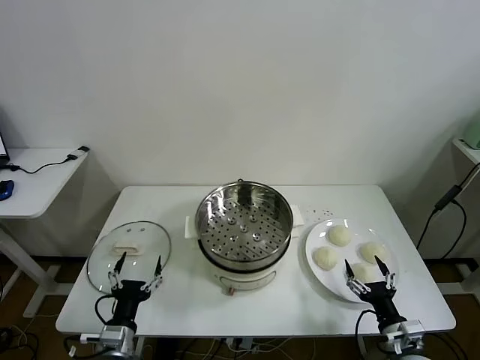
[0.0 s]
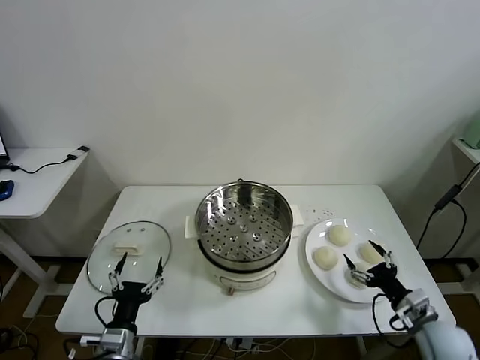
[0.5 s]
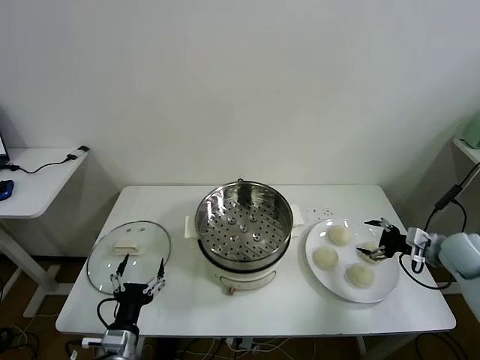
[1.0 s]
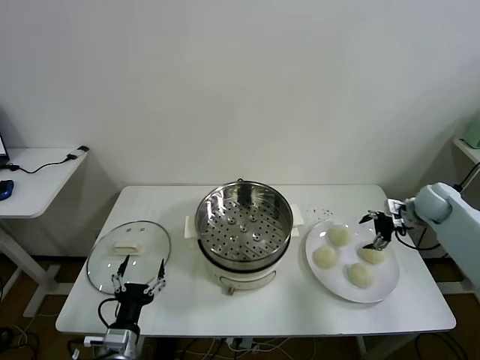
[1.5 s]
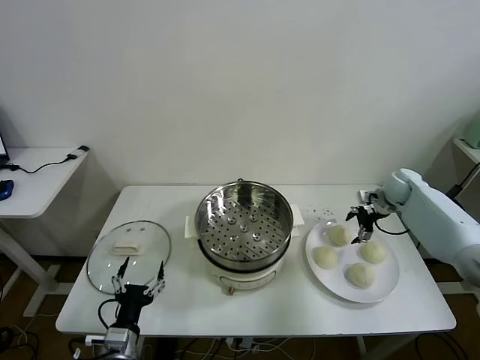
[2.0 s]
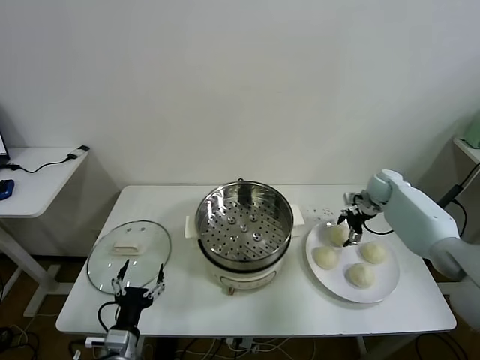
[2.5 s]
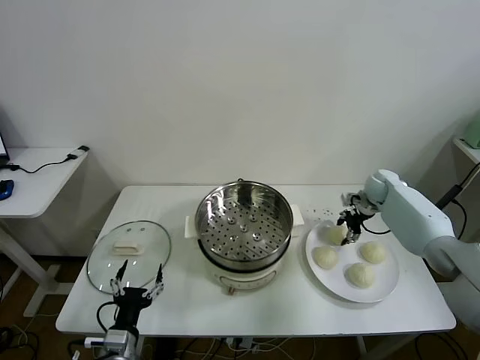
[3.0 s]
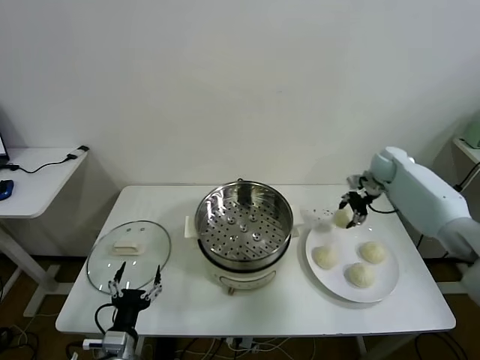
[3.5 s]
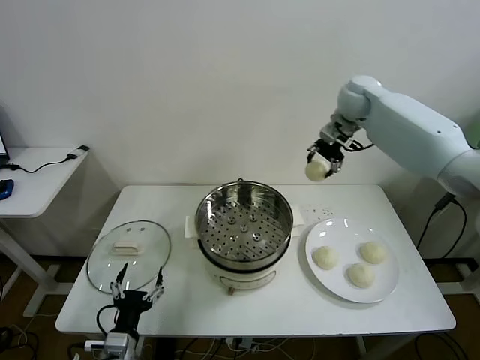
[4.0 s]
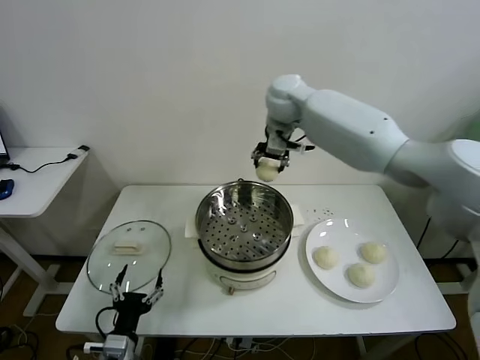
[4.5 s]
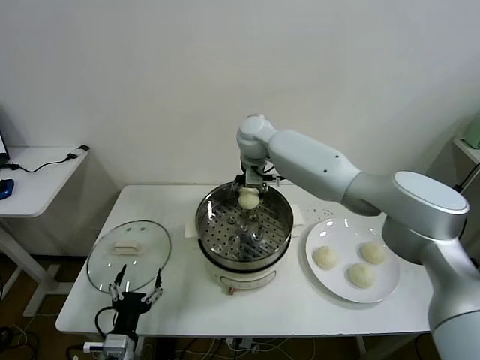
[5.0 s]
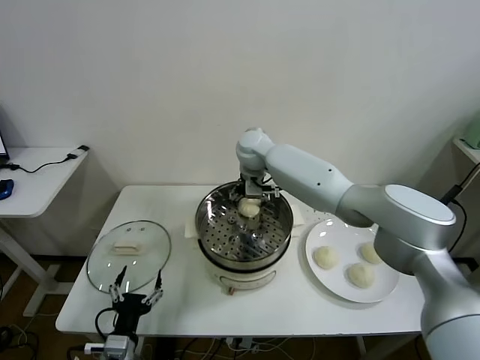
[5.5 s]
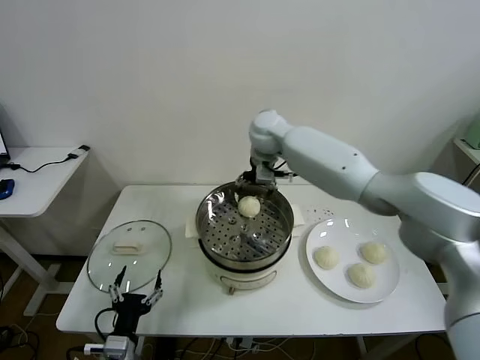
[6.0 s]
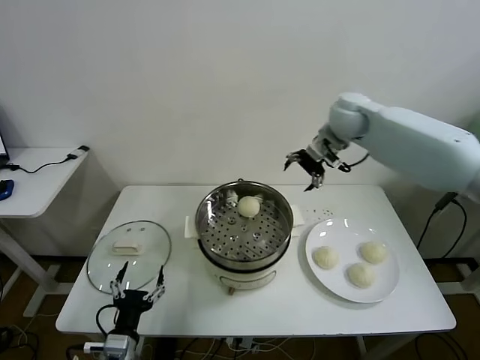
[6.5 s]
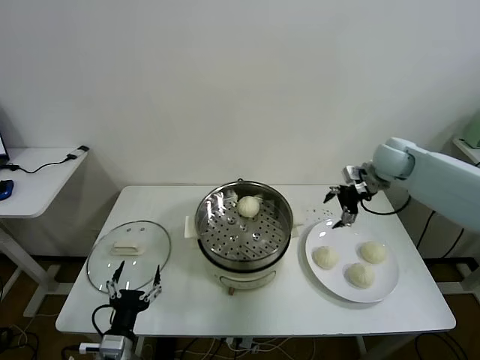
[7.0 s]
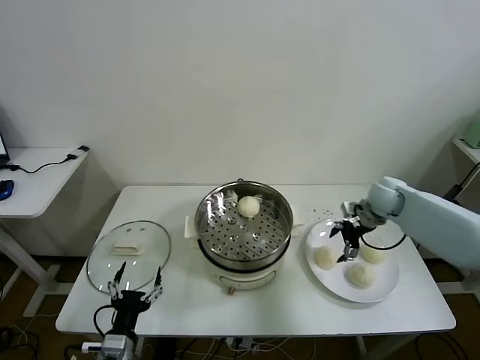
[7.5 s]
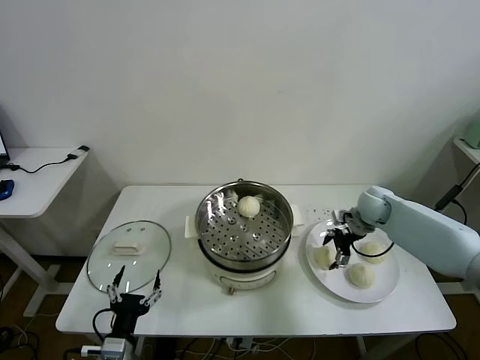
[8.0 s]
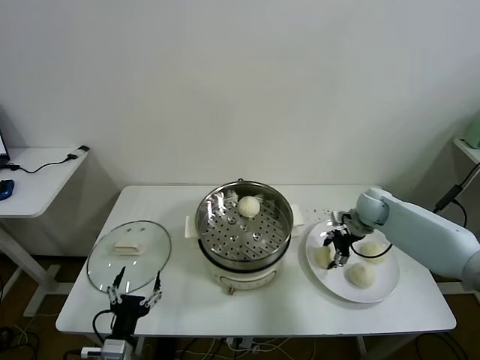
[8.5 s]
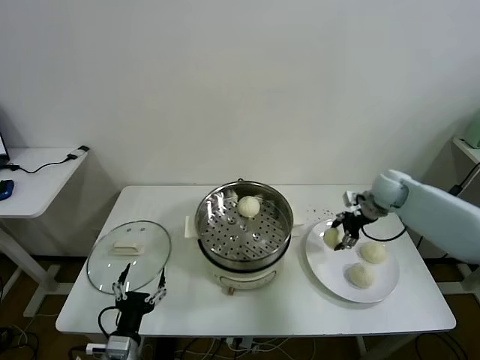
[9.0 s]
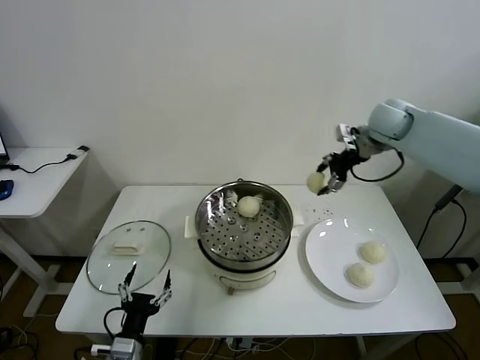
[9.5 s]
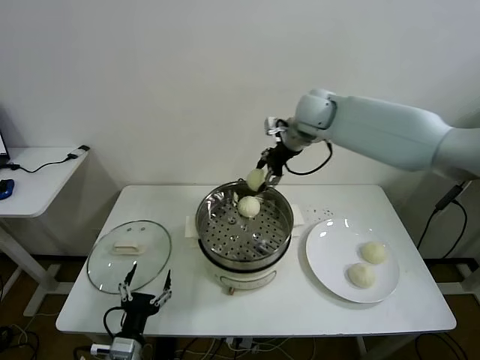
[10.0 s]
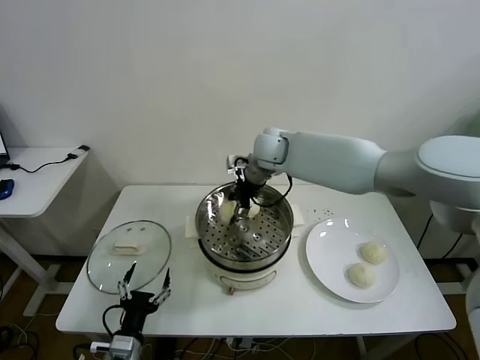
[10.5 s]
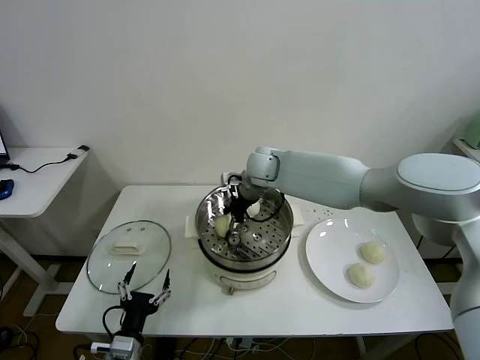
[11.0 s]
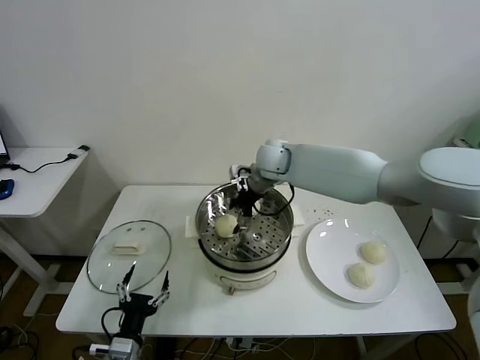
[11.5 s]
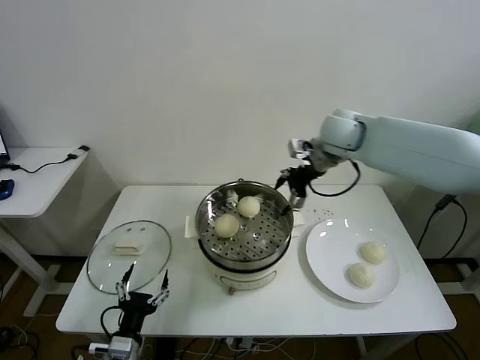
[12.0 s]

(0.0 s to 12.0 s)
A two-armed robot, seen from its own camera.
Task of the whole recording: take steamed baozi put them in steamer then cover it.
Step, 0.0 s - 3.0 s: Grasp the baozi in the plate with right gripper.
Step, 3.5 s - 5.5 s: Place the baozi on the steamer with right gripper.
Step, 6.0 s - 8.0 s: Grasp the baozi in the plate with right gripper.
Step, 8.5 s - 11.0 s: Place the baozi on the steamer with right gripper.
2.0 s - 4.0 s: The right gripper goes approximately 35 cm upward and to the left, and closes its fingers.
4.0 s - 6.0 s: The right gripper goes roughly 15 cm to the left and downward, and opens.
6.0 s - 8.0 s: The right gripper moves to the right and downward, approximately 35 cm.
8.0 s - 10.0 s: The right gripper heads upward and to the left, covering about 30 cm, and closes its fingers.
10.0 s - 12.0 s: The right gripper shifts some 10 cm to the right, and opens its fingers.

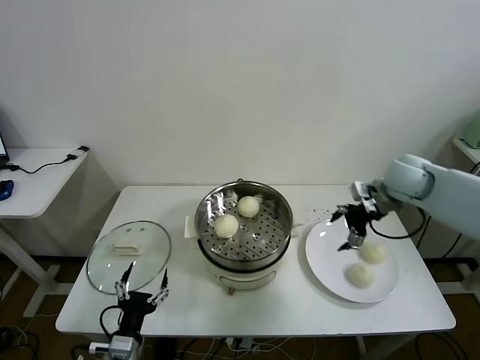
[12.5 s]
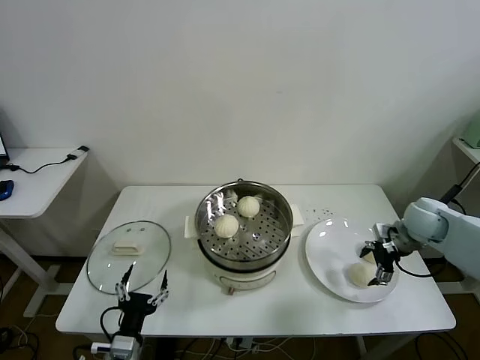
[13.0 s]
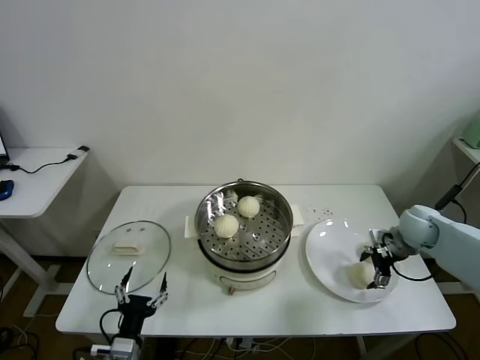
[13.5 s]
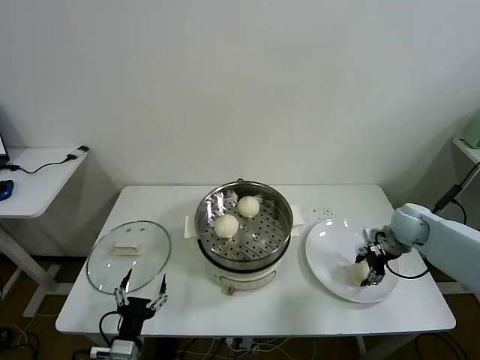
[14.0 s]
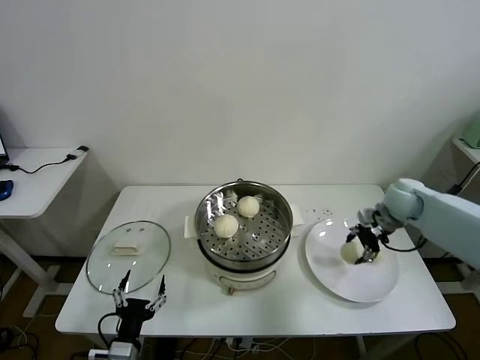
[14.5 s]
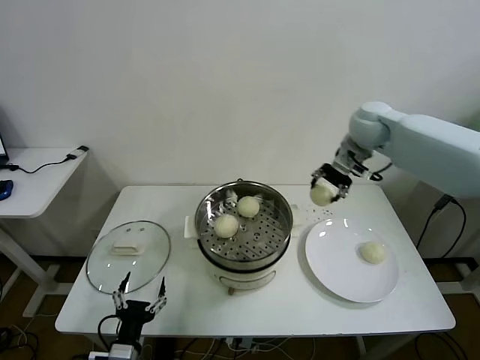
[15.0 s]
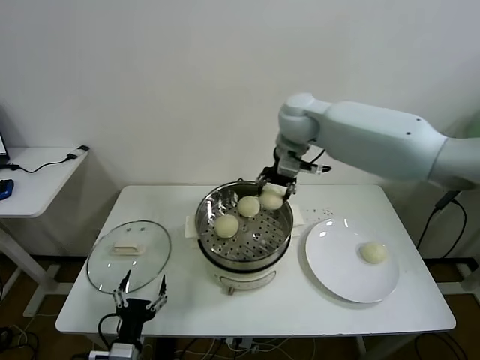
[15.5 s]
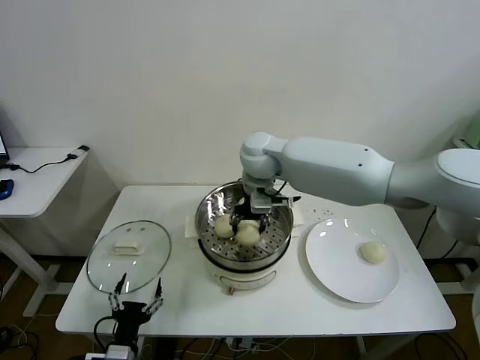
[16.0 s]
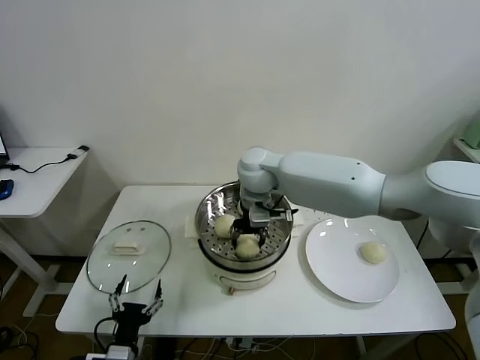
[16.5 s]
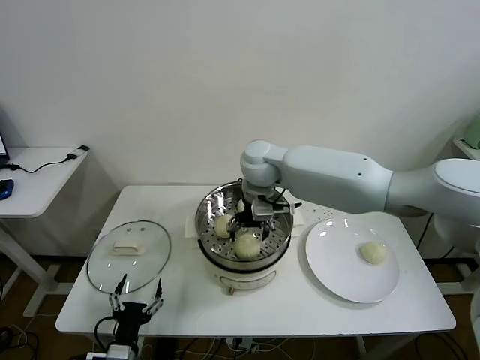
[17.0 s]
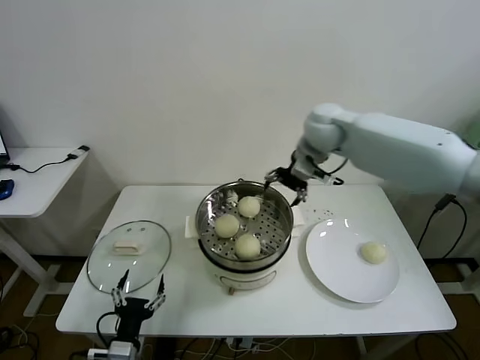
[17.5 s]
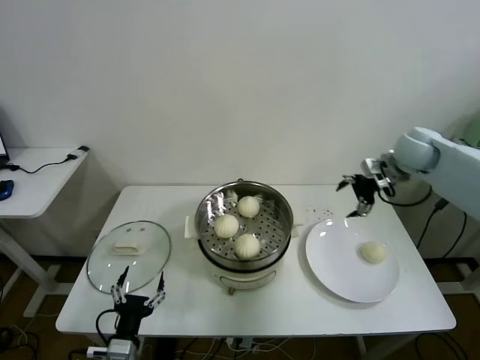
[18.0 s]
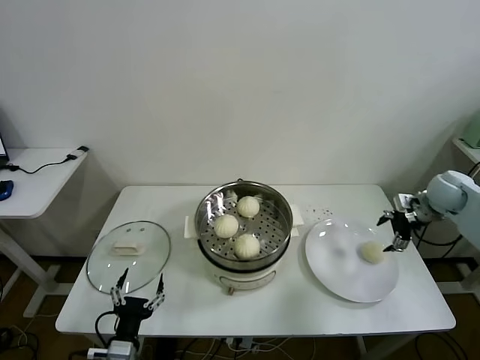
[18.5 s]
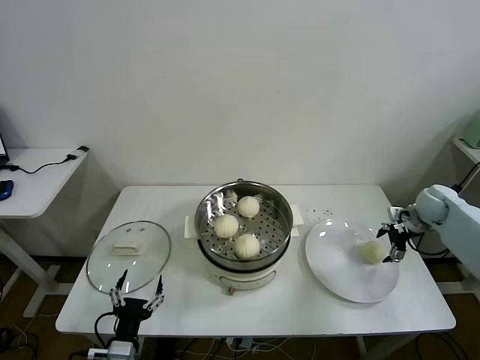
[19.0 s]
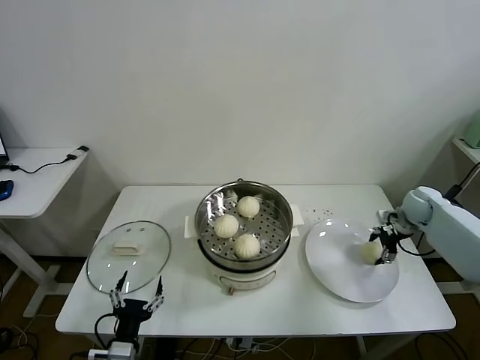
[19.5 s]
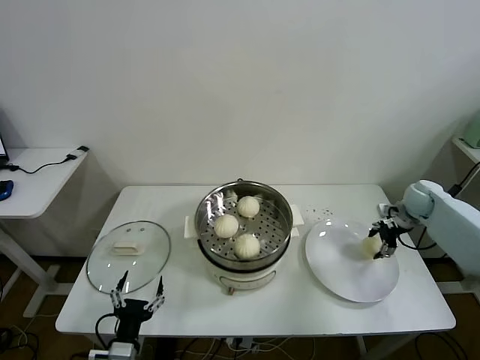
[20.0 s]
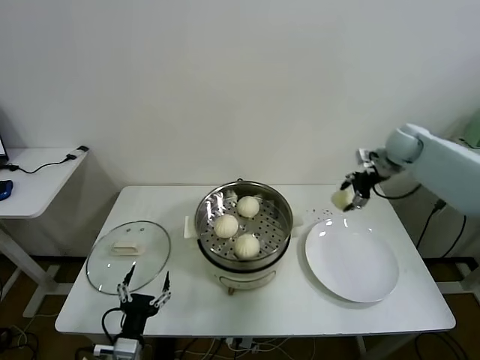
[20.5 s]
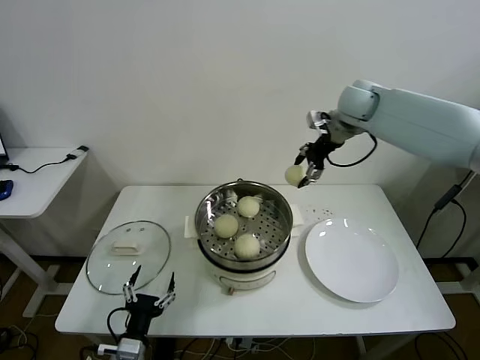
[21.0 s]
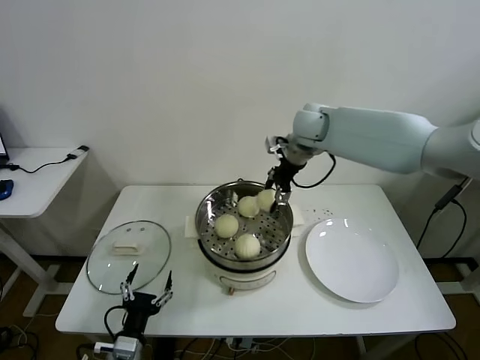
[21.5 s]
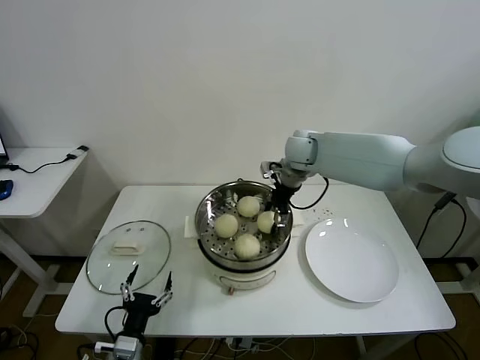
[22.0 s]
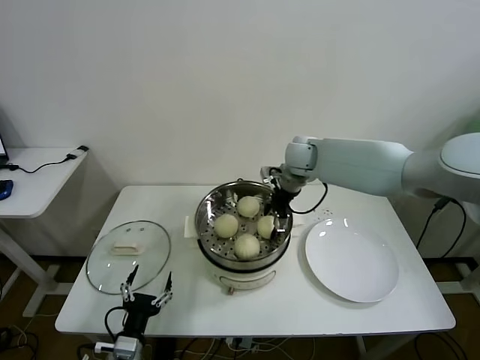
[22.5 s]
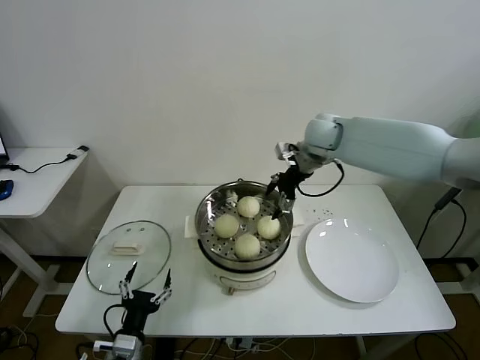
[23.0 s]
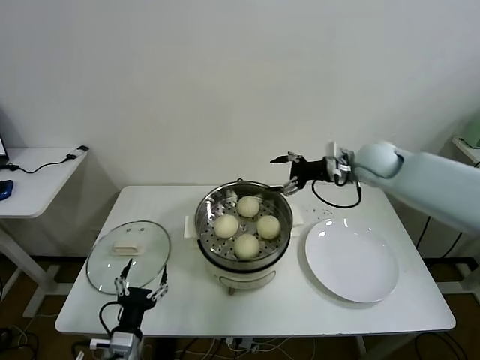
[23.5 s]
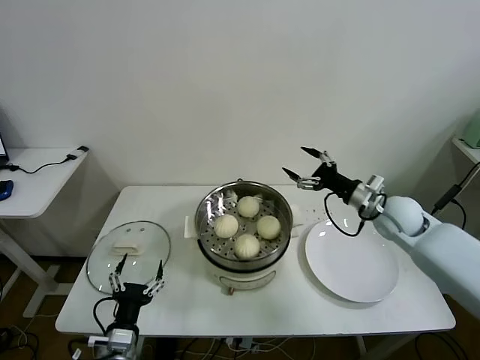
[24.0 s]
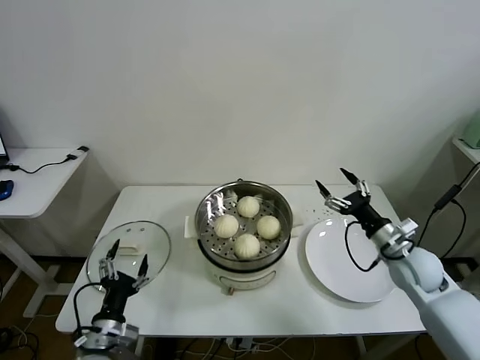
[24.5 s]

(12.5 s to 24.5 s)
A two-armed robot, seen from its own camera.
Task of the whole recording: take steamed baozi put them in steamer then cover it.
Step, 12.5 s - 14.0 s: Grasp the baozi in the plate with right gripper.
Step, 14.5 s - 16.5 s: Place the baozi on the steamer with right gripper.
Step, 17.0 s - 19.5 s: Grasp the baozi in the plate with right gripper.
Step, 20.0 s - 22.5 s: Place the baozi on the steamer with right gripper.
12.5 s - 14.5 s: The right gripper is displaced downward by about 5 cm, and closes up.
14.5 s - 16.5 s: The right gripper moves to the left, roughly 35 cm.
16.5 s - 18.5 s: The right gripper goes some 50 cm to the right, and opens its fingers.
18.5 s - 20.5 s: The right gripper heads to the left, forward and upward, covering some 15 cm, and closes.
20.5 s - 22.5 s: The right gripper shifts roughly 25 cm to the left, and opens.
22.5 s - 24.5 s: The right gripper heads backward, to the right and downward, covering approximately 35 cm. The left gripper ends up about 5 cm from where it was.

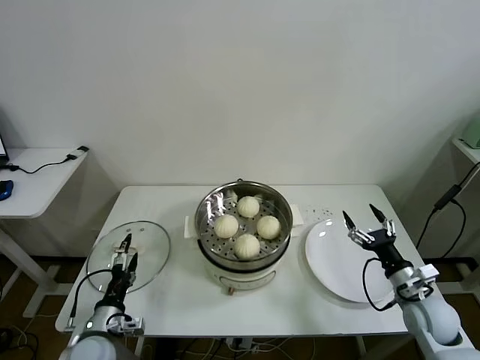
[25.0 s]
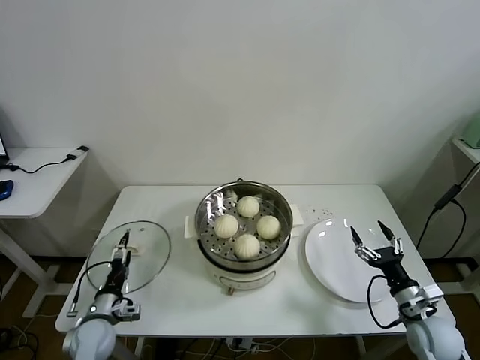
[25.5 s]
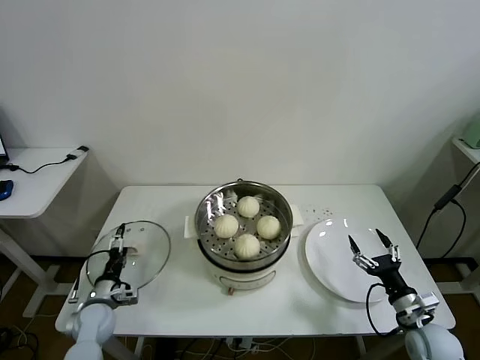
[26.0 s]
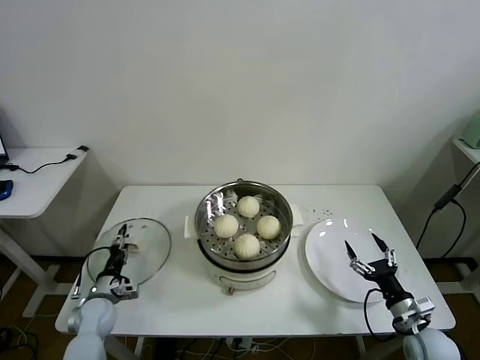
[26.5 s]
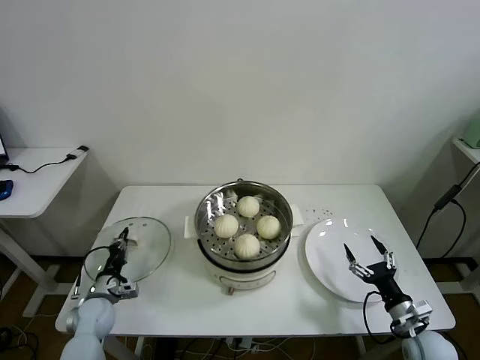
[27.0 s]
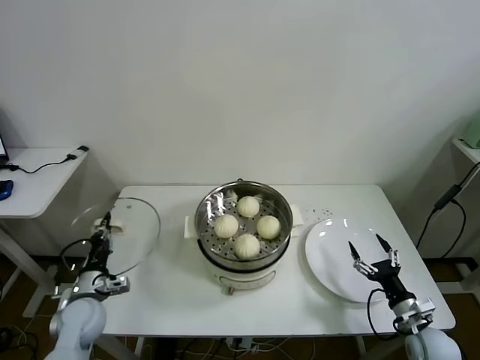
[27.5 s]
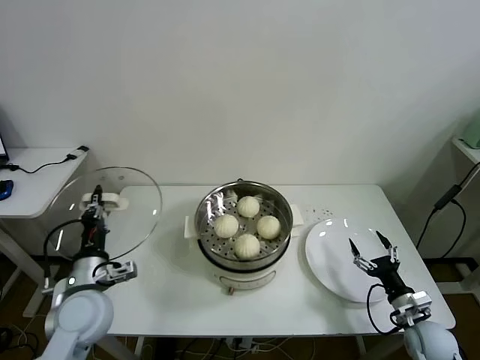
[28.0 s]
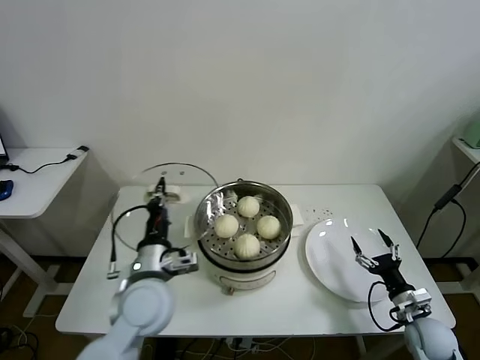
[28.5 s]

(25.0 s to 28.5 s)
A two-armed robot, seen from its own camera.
Task of the whole recording: take steamed baozi put them in steamer then cover it.
25.0 s - 27.0 s: The right gripper is displaced downward and backward by some 10 cm. Meanwhile the left gripper travels forward, downward and to the left by about 15 cm, and closes.
27.0 s - 28.5 s: The left gripper heads upward and to the right, covering approximately 30 cm.
